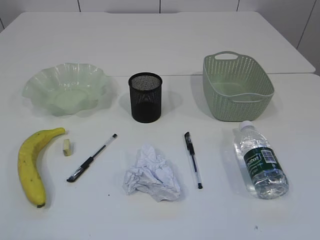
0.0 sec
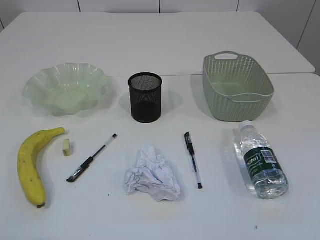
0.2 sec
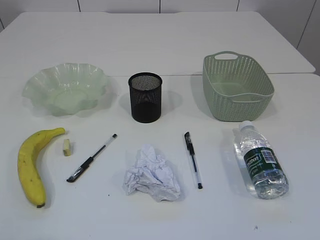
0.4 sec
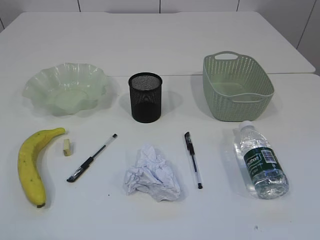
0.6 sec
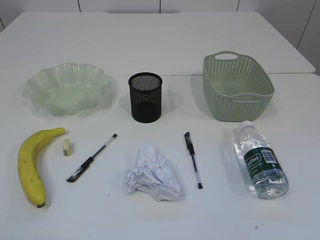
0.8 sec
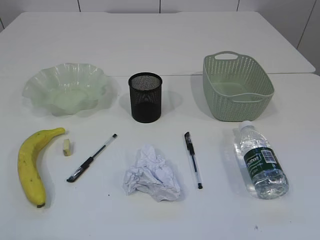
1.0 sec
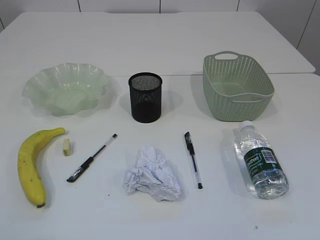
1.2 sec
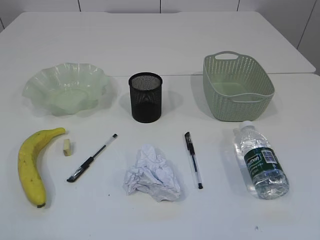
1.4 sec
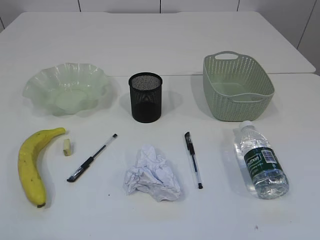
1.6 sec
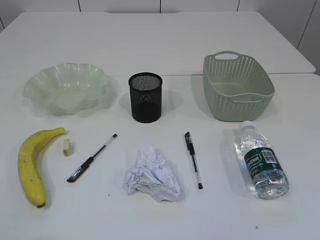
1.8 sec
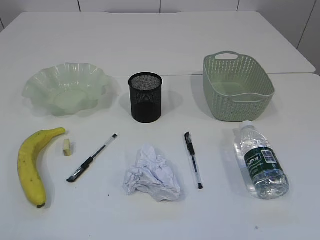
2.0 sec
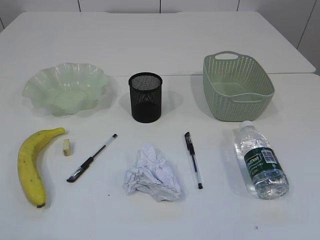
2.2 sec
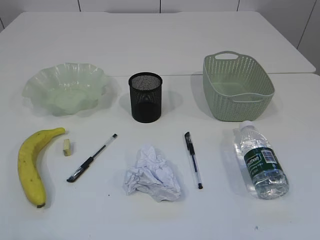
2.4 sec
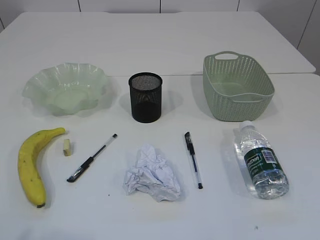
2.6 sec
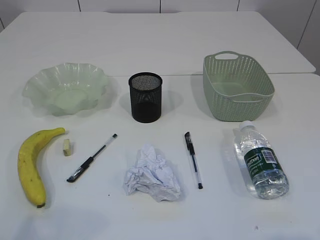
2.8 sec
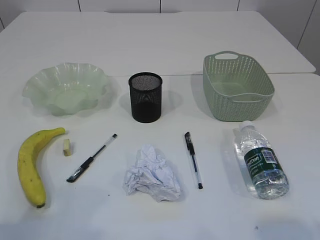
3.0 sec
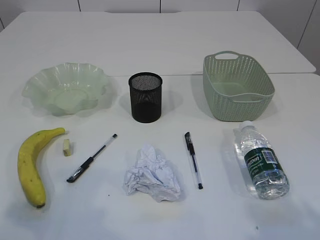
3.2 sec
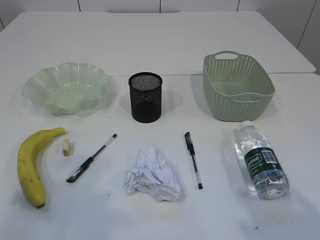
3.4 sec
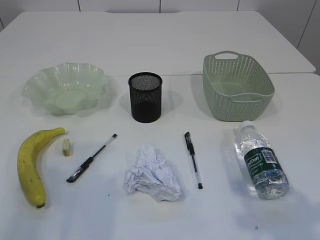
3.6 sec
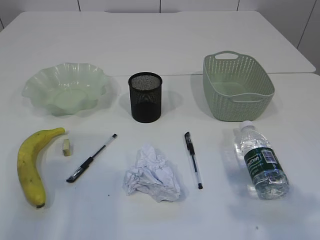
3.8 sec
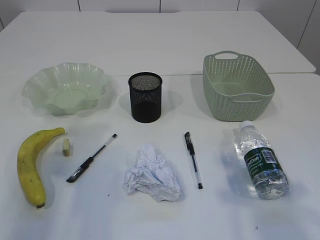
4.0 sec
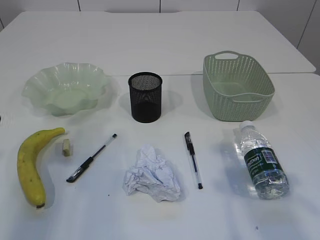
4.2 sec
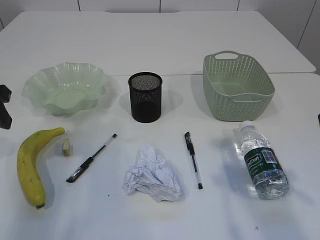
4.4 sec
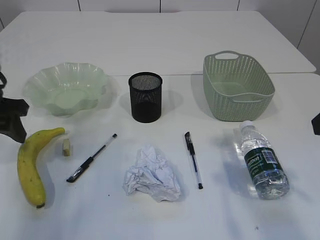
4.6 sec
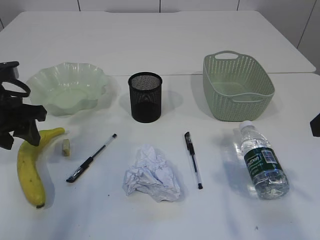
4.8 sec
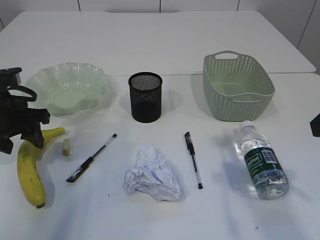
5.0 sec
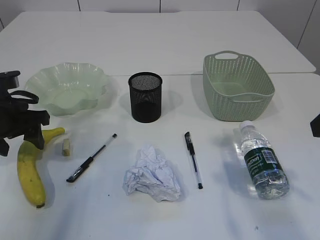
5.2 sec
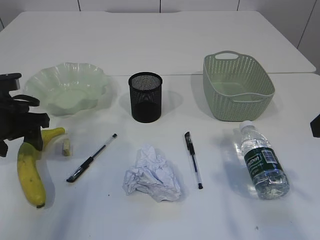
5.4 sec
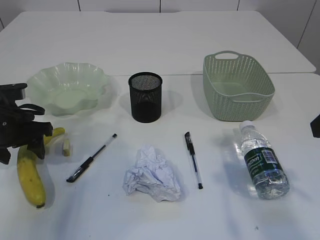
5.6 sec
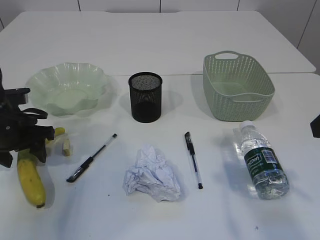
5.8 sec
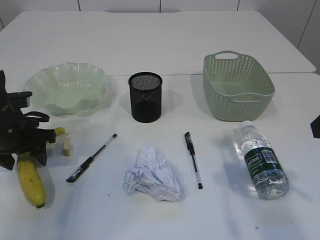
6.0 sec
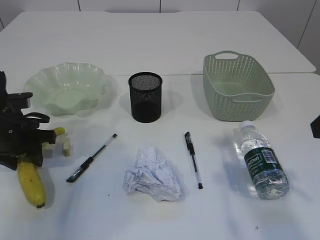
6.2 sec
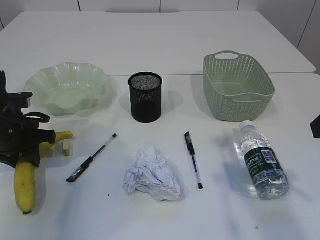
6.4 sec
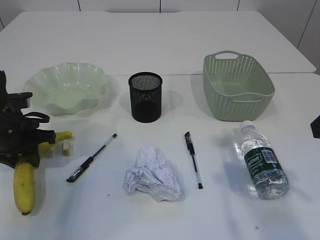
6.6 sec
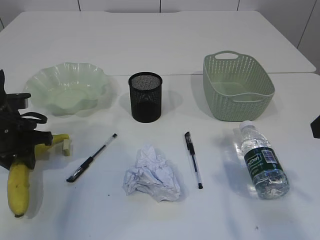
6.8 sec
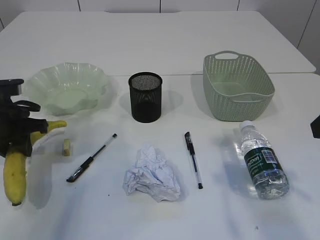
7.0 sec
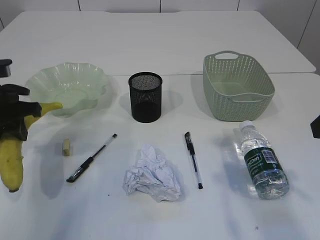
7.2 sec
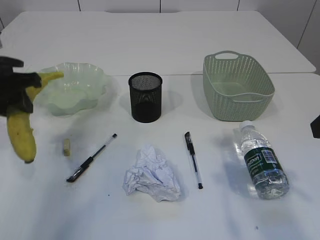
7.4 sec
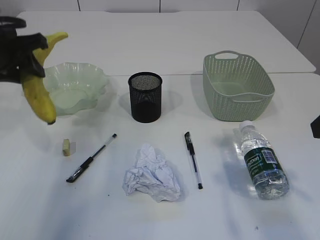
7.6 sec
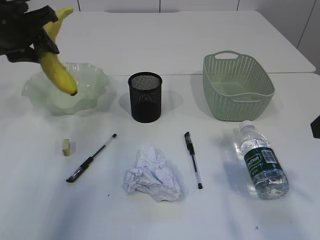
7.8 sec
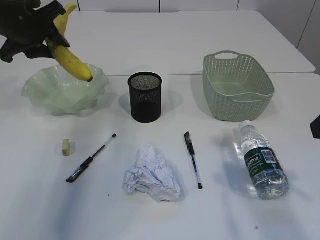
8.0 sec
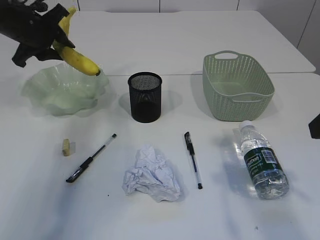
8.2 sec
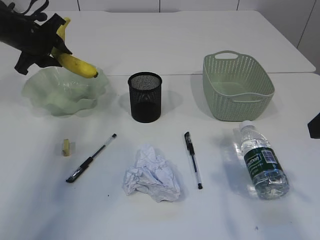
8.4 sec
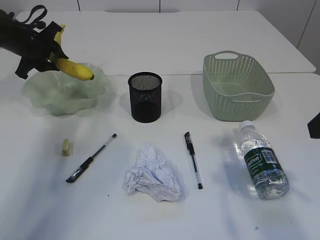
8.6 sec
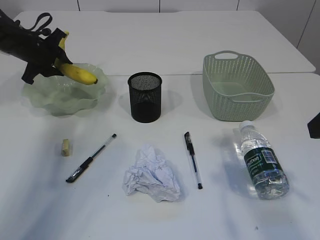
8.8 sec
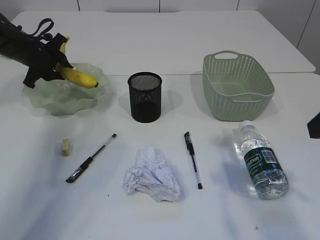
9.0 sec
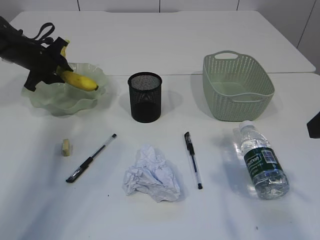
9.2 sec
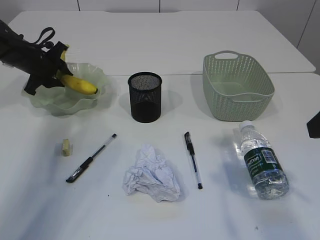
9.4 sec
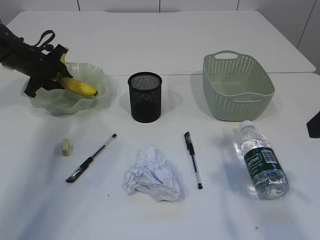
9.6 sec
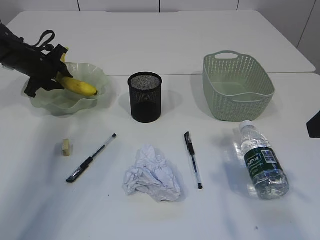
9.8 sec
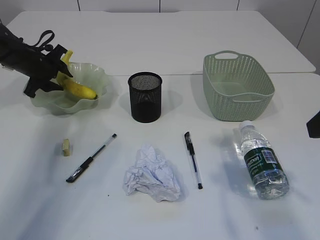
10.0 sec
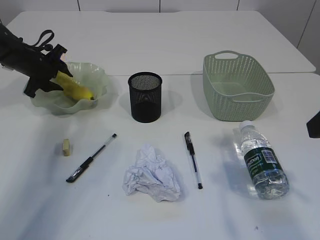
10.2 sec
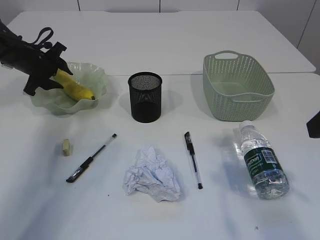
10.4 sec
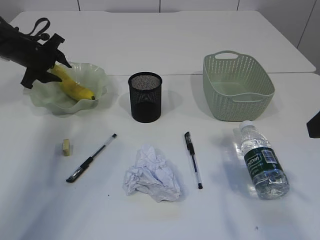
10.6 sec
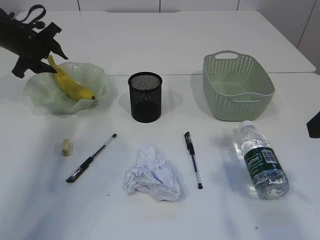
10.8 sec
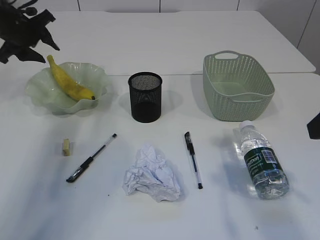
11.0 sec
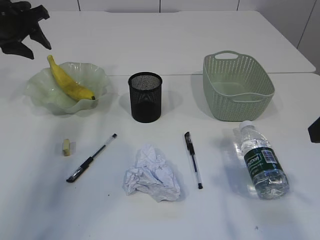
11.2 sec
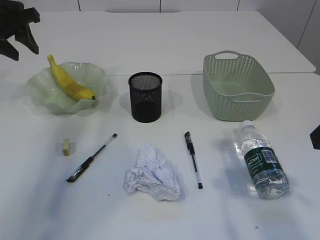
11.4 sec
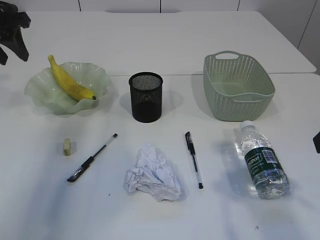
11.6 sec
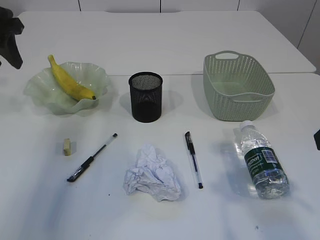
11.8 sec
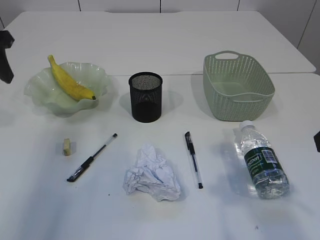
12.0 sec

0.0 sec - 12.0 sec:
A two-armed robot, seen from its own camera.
Step, 7.4 sec - 11.0 sec: Place the banana in the plate.
1.6 sec - 3.0 sec: The left gripper shifts approximately 5 cm forward.
3.0 sec - 4.4 sec: The grippers both shift forward by some 20 cm.
4.4 sec - 6.0 sec: The left gripper is displaced downward by about 10 cm.
6.0 sec - 7.6 sec: The left gripper heads upward, covering about 15 cm, and closes.
7.6 sec - 9.0 sec: The left gripper moves forward and downward, approximately 20 cm.
9.0 sec - 10.4 sec: The grippers stay close to where they were, moving slightly.
10.4 sec - 12.0 sec: The left gripper travels upward and backward by about 20 cm.

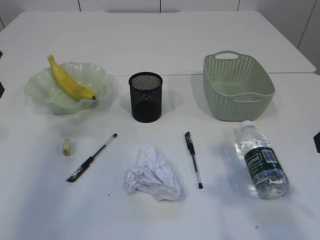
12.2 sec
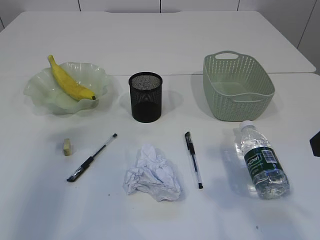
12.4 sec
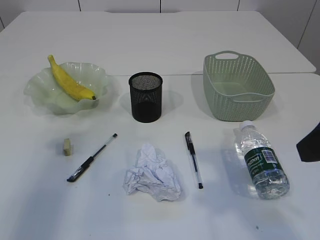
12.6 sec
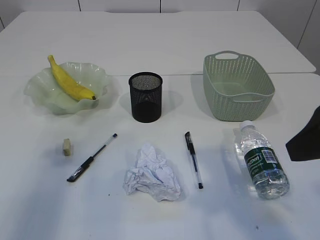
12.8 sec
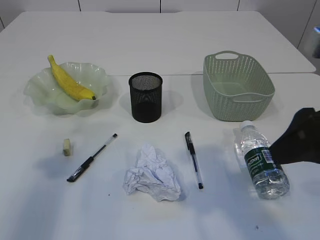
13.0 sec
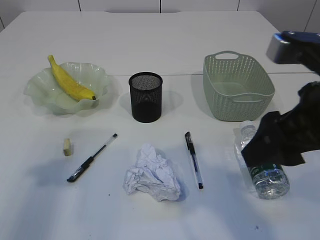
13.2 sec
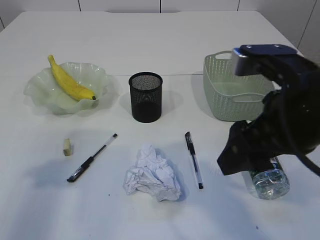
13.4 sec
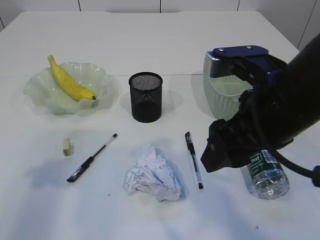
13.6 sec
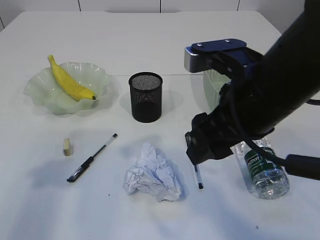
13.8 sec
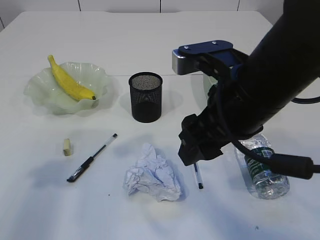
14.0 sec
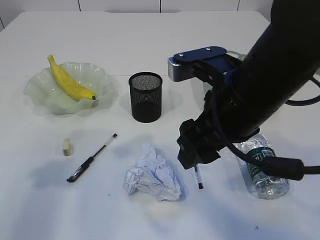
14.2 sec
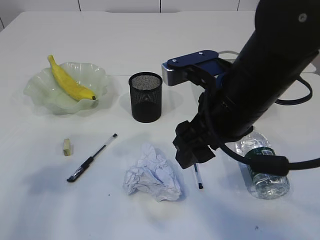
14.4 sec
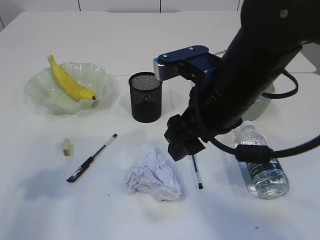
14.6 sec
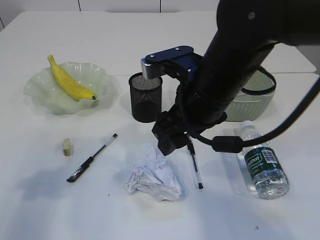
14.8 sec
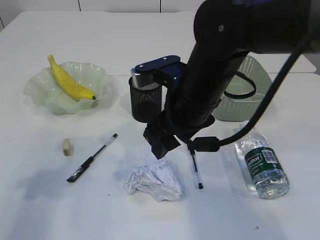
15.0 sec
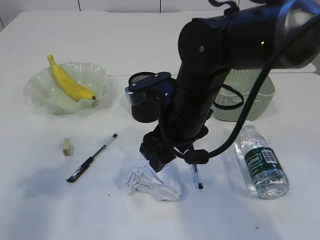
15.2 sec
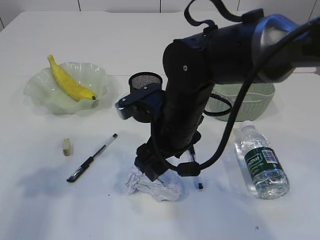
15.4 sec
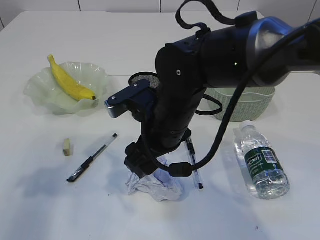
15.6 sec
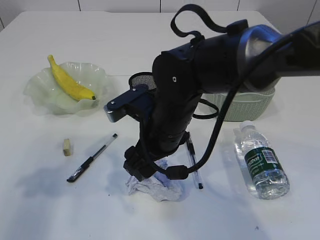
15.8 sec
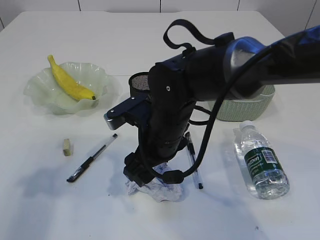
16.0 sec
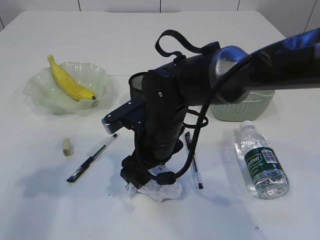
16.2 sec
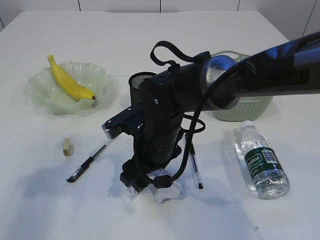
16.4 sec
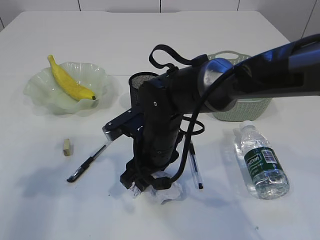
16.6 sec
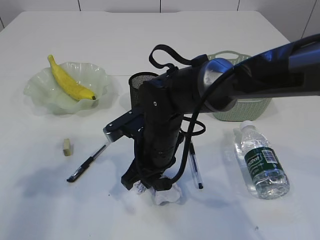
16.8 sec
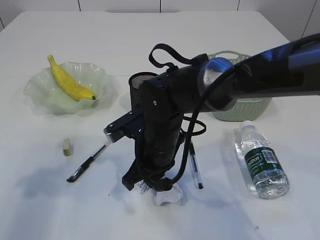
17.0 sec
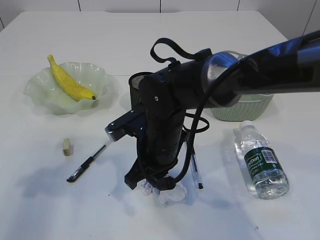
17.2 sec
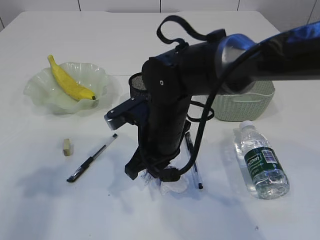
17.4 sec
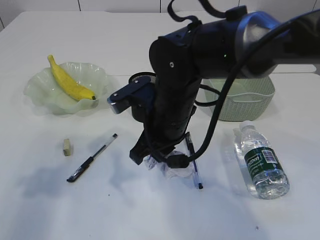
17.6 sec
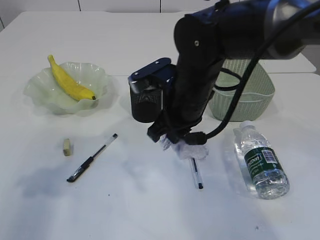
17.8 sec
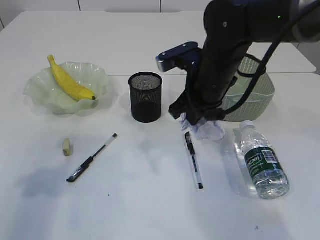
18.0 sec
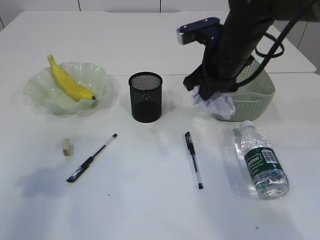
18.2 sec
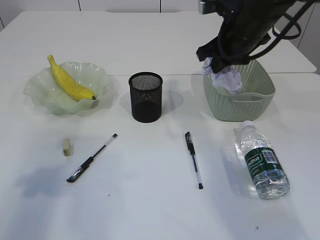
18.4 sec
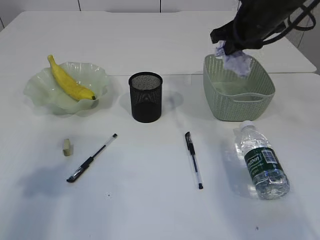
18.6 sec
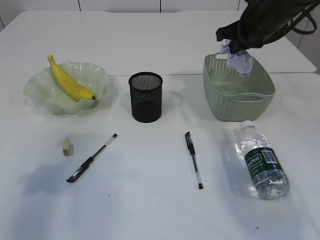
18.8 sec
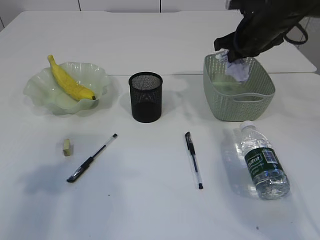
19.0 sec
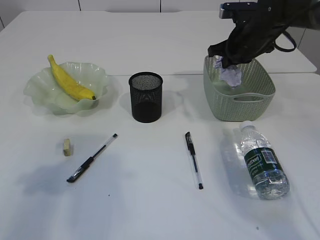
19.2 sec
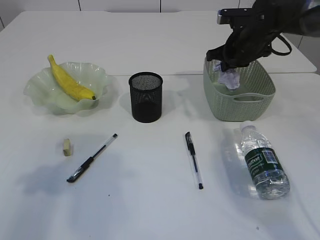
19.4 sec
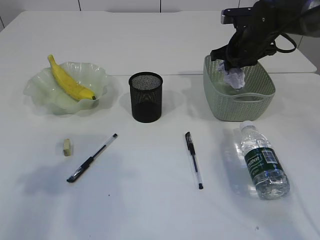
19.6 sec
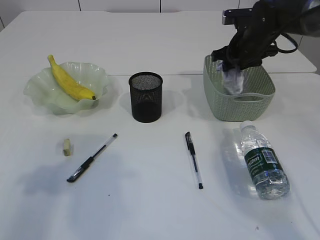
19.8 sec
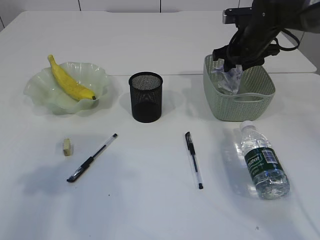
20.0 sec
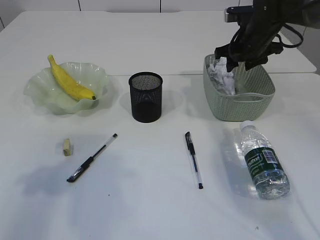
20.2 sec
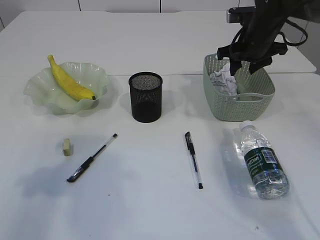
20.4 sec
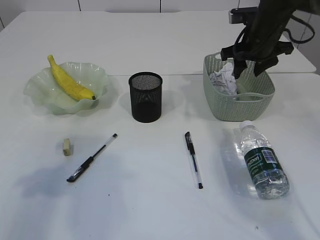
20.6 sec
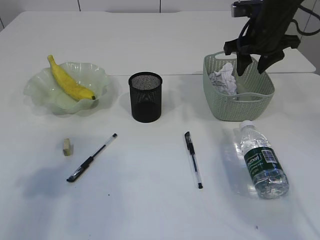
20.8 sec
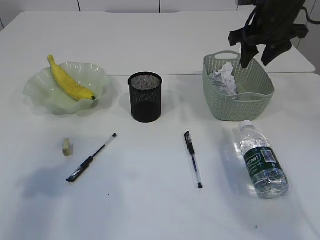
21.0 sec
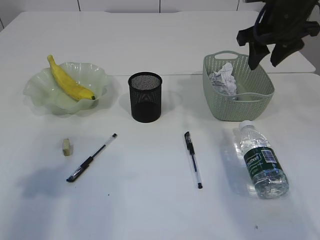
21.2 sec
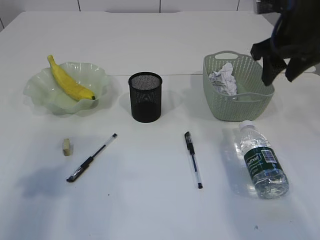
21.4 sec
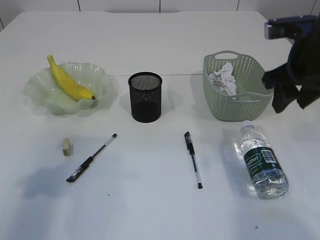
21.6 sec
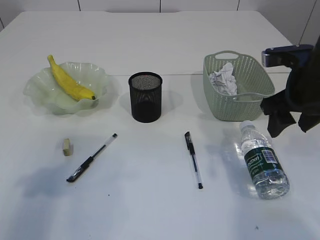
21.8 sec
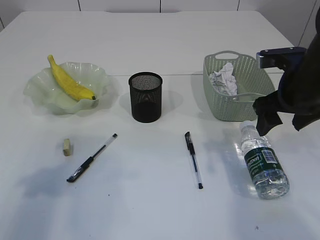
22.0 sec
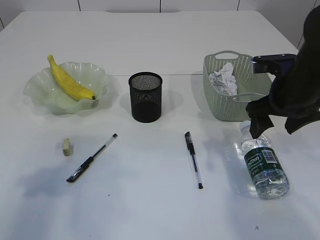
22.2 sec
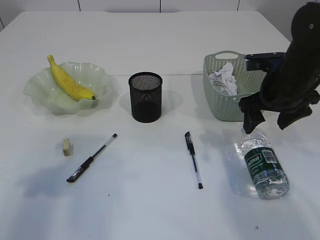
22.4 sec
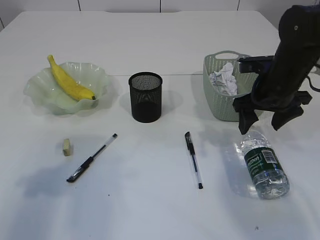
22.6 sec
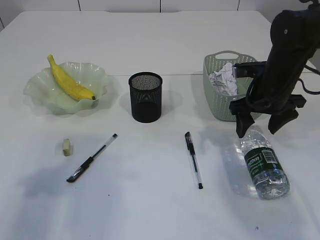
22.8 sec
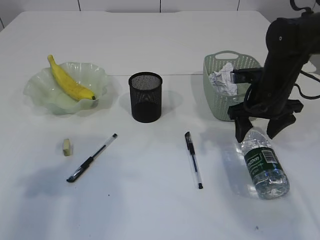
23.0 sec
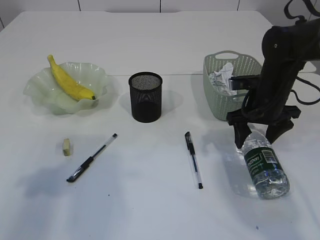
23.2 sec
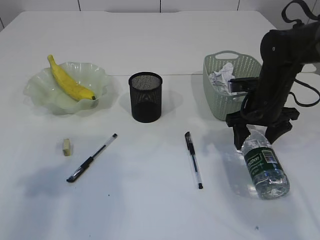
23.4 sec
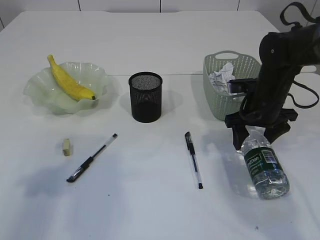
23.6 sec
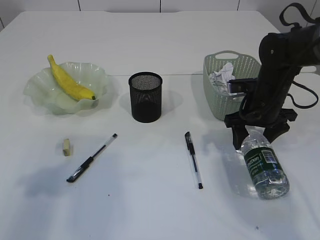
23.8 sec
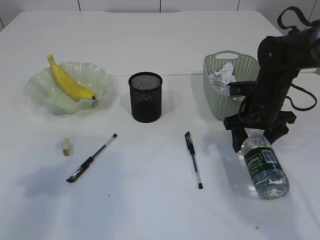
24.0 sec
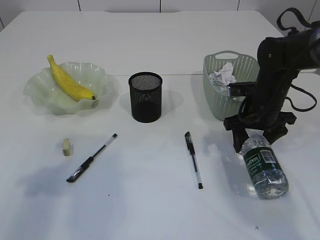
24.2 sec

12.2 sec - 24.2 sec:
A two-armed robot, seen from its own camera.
Step, 12.2 sec - 17.6 sec: Pick up the waste paper.
Step, 17.8 sec - 21.0 sec: Place the waste paper in the basket.
12.2 sec - 13.8 sec: The left gripper is displaced backward by roughly 10 cm. Meanwhile the right gripper shifts some 15 cm to the left and forward.
13.8 sec - 15.2 sec: The right gripper goes approximately 10 cm forward, downward and to the left.
15.2 sec - 16.6 sec: The right gripper heads downward, covering roughly 10 cm.
16.6 sec - 18.2 sec: The right gripper moves to the right, upward and forward, some 20 cm, and closes.
18.2 sec - 19.8 sec: The right gripper moves forward and to the right, some 15 cm, and opens its fingers.
19.8 sec - 21.2 sec: The right gripper heads upward and backward, covering some 10 cm.
21.2 sec - 22.6 sec: The right gripper is displaced downward by some 10 cm, and opens its fingers.
22.6 sec - 24.2 sec: The right gripper travels downward by about 5 cm.
